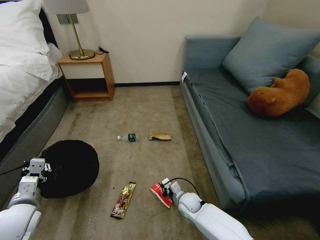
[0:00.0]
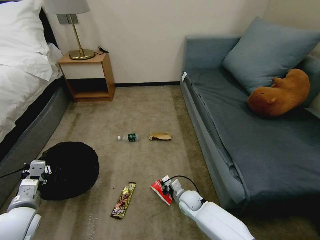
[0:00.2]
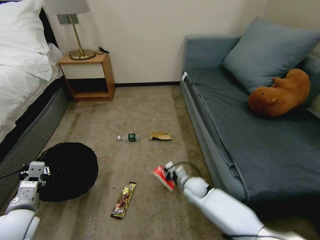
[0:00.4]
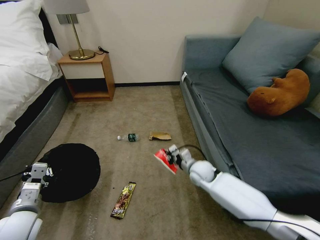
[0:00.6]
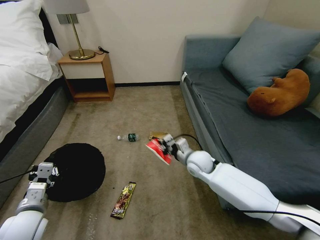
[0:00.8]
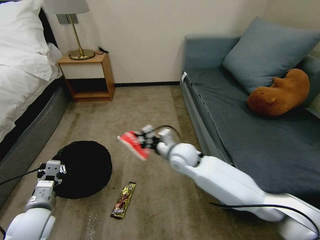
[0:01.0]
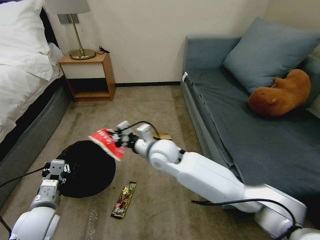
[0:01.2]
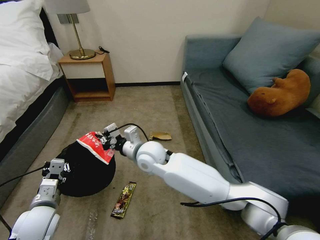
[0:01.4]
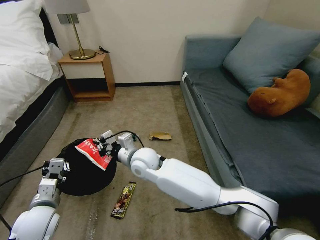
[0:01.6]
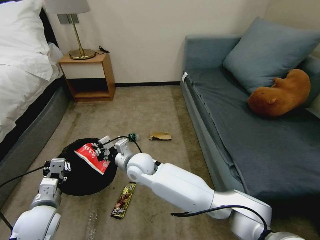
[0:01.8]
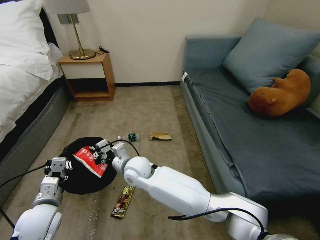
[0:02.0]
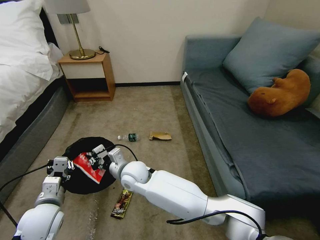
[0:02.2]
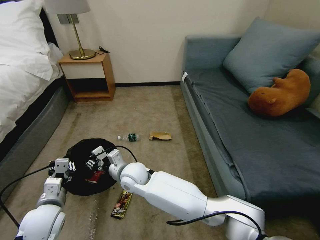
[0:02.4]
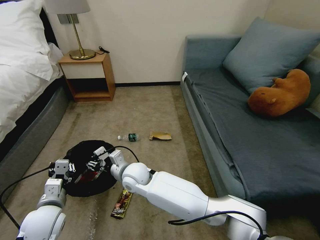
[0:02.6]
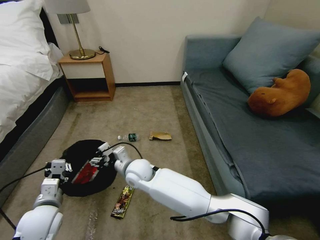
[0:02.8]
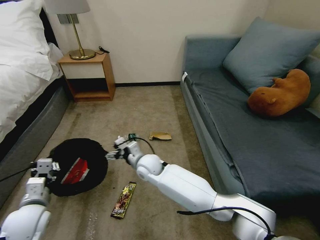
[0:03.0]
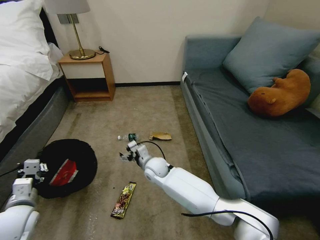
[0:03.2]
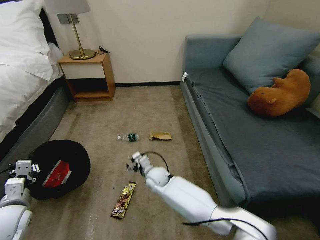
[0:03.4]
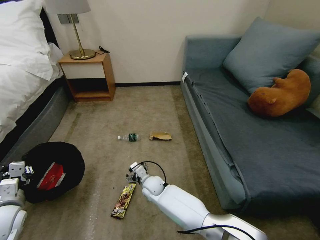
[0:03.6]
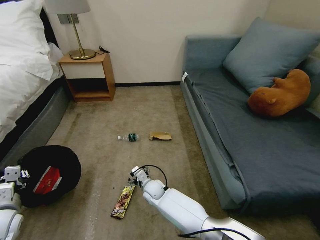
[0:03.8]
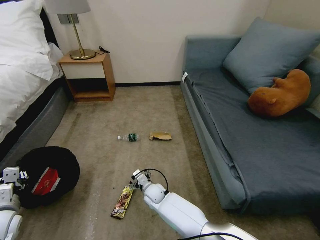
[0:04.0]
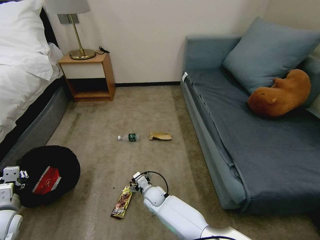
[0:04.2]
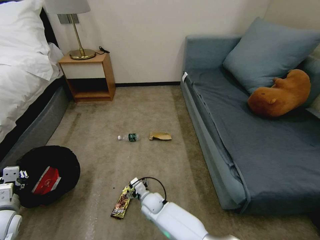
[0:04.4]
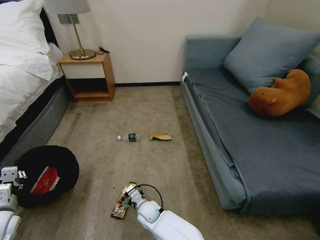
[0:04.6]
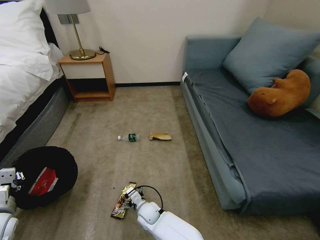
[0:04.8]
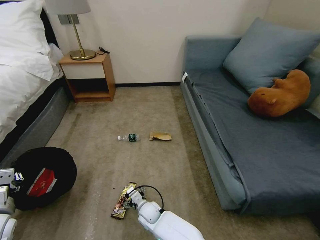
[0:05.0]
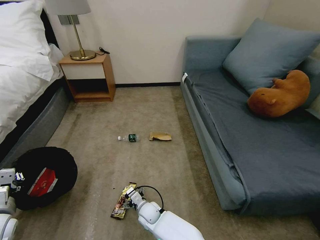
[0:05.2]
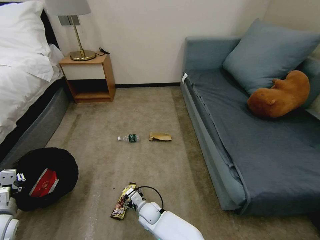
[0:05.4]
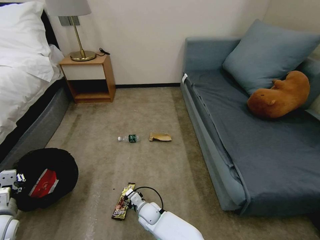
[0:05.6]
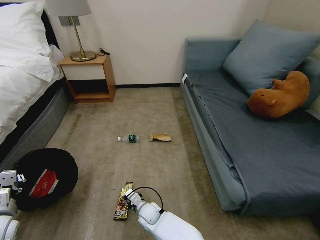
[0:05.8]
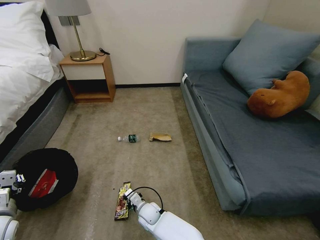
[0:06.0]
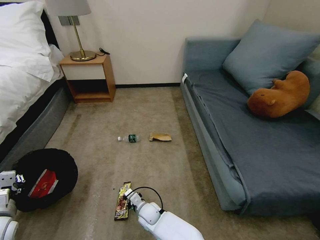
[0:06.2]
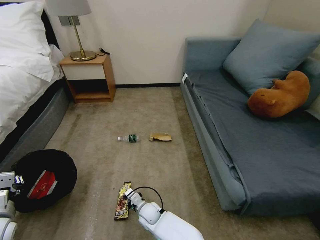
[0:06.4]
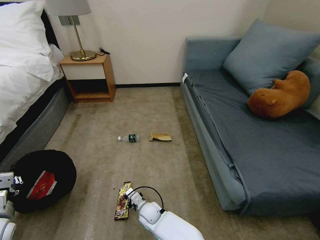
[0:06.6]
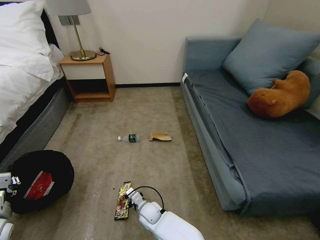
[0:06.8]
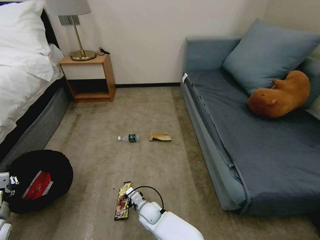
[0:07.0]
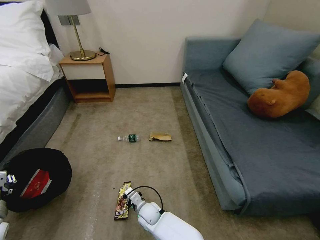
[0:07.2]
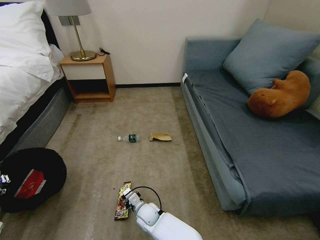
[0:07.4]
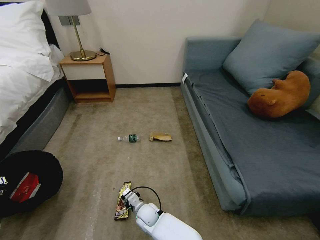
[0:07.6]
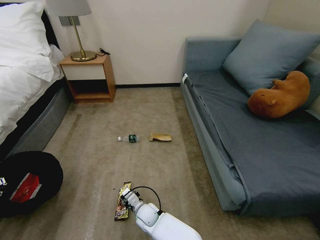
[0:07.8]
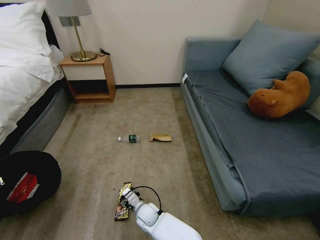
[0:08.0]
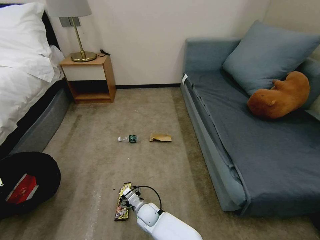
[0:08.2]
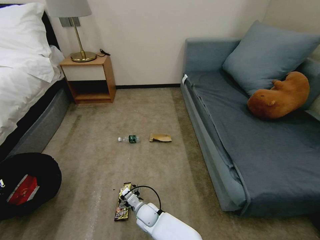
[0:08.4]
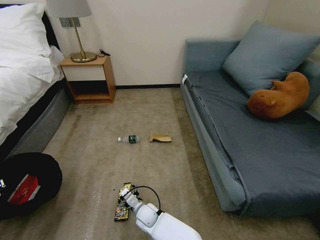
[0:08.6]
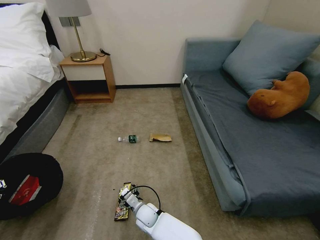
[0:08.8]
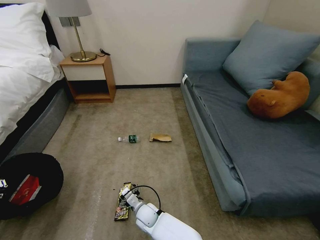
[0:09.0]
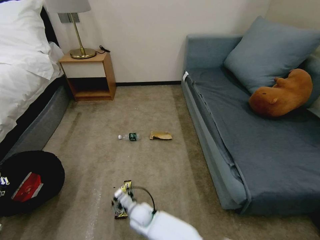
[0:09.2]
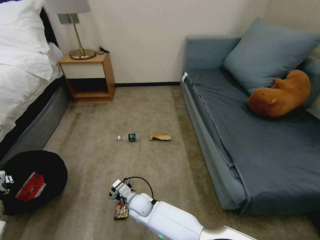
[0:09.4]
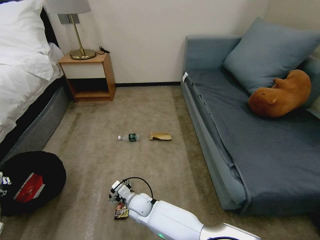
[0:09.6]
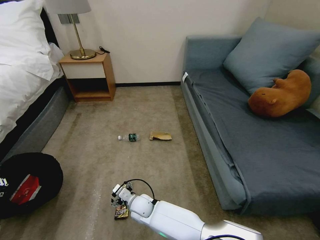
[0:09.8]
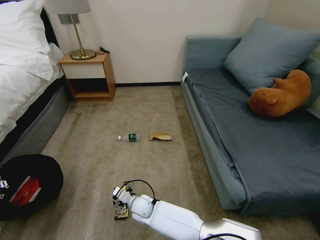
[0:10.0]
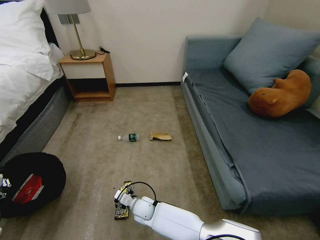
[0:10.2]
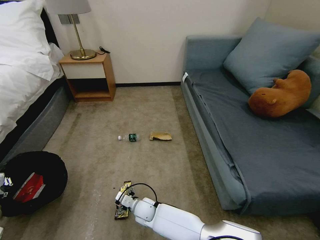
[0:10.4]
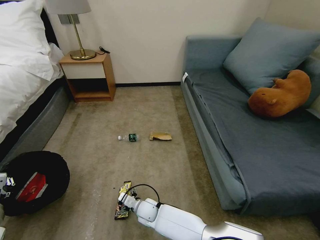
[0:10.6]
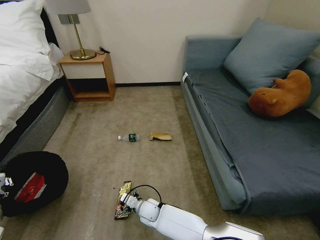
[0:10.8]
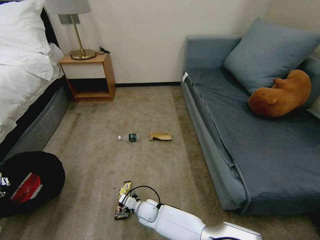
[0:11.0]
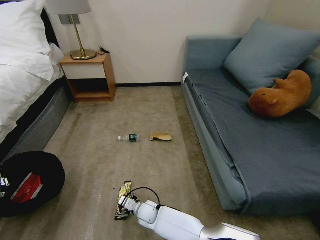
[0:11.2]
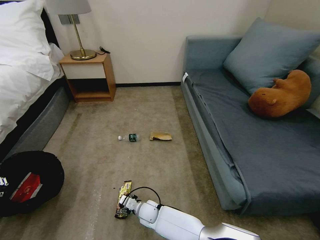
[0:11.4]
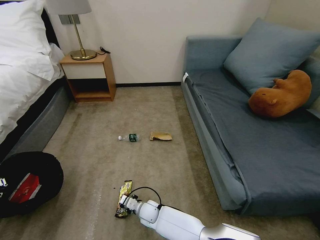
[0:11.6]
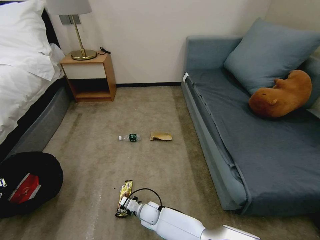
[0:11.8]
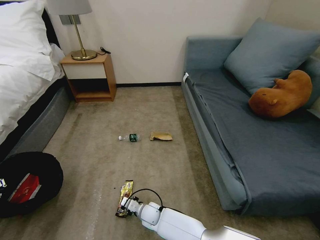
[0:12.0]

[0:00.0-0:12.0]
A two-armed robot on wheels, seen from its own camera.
Task of the whole recording: Pick up the trash bin, then pick up the garbage on the floor and place it into the trash bin.
0:00.0 to 0:01.6: The right gripper shifts roughly 30 cm upward and to the left; the left gripper travels to the right by some 5 cm.
0:01.6 to 0:03.0: The right gripper travels downward by roughly 5 cm, and opens its fingers.
0:03.0 to 0:04.4: The left gripper is displaced to the left by roughly 10 cm; the right gripper travels downward and backward by approximately 20 cm.
0:04.4 to 0:06.0: The right gripper closes up.
0:06.0 to 0:07.6: The grippers move only a little.
0:07.6 to 0:09.0: The right gripper opens.
0:10.4 to 0:12.0: The right gripper closes up.

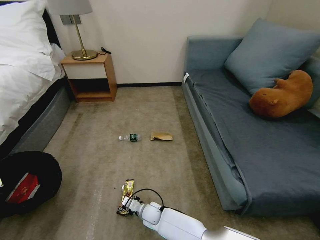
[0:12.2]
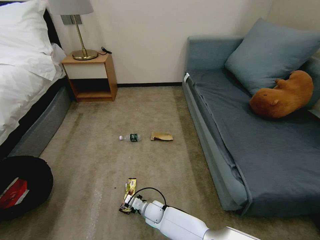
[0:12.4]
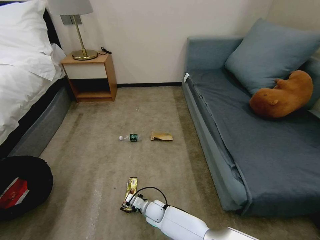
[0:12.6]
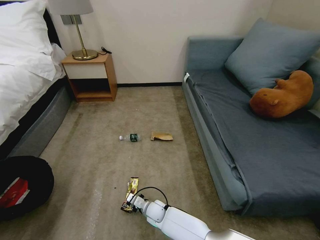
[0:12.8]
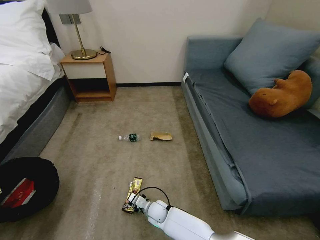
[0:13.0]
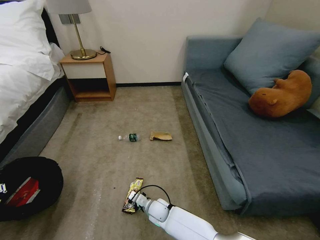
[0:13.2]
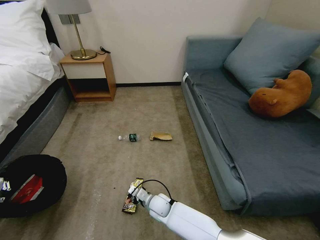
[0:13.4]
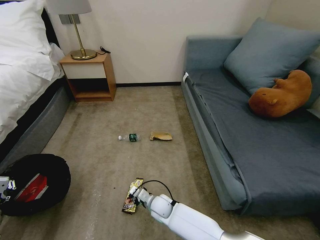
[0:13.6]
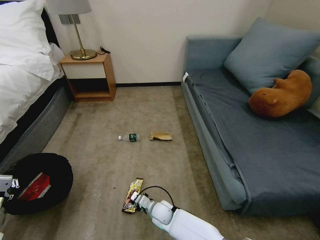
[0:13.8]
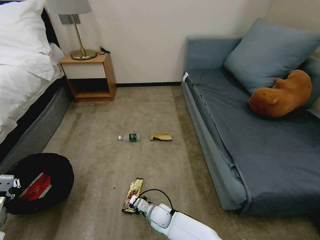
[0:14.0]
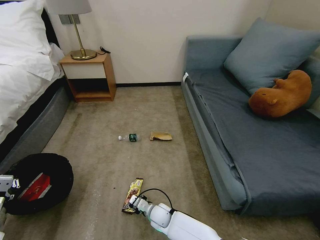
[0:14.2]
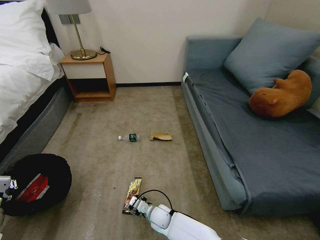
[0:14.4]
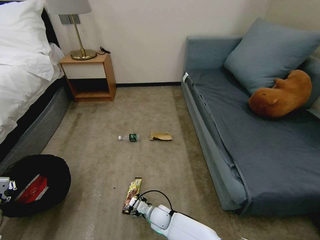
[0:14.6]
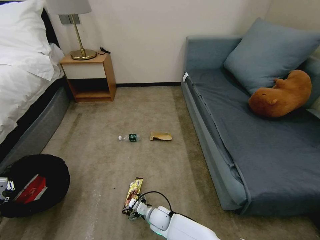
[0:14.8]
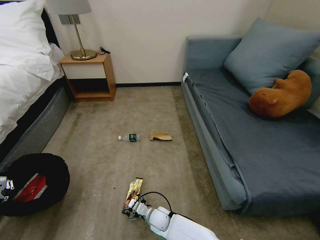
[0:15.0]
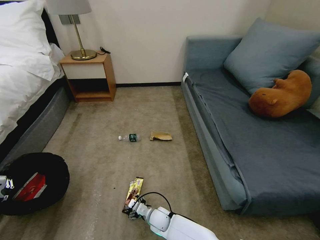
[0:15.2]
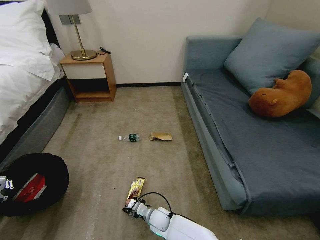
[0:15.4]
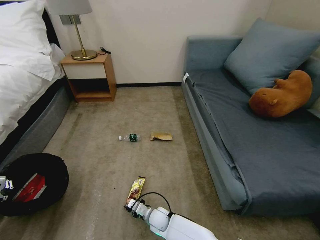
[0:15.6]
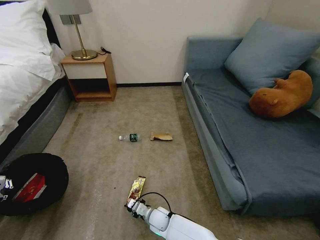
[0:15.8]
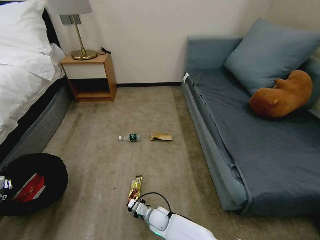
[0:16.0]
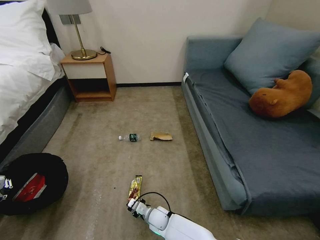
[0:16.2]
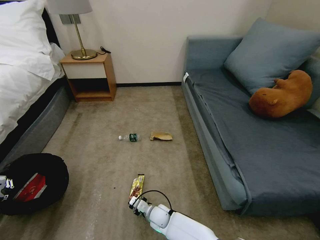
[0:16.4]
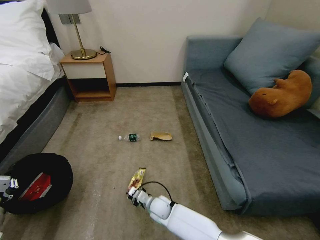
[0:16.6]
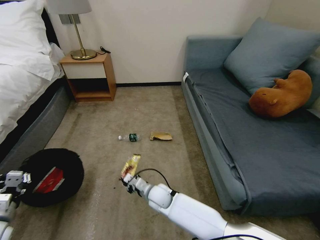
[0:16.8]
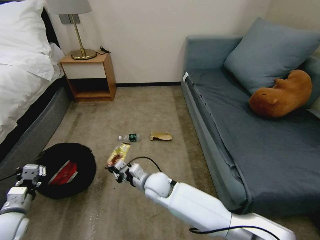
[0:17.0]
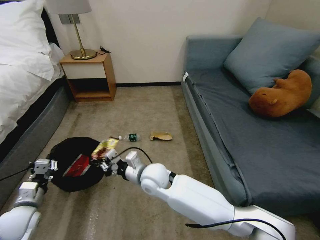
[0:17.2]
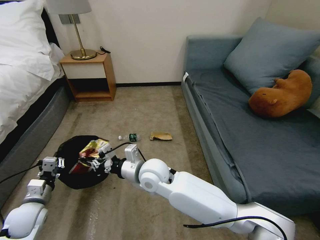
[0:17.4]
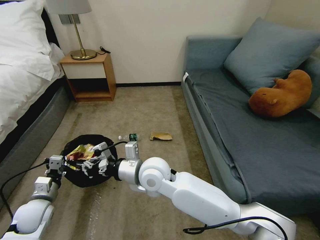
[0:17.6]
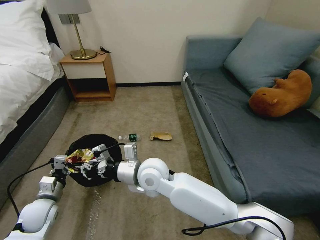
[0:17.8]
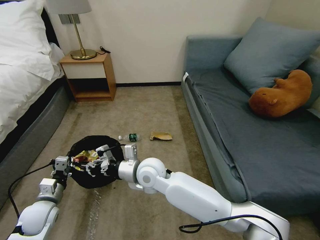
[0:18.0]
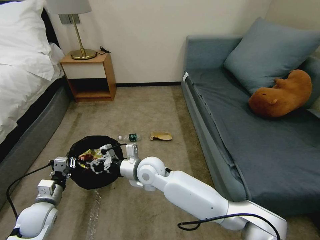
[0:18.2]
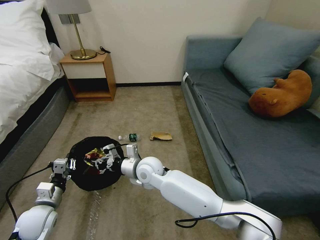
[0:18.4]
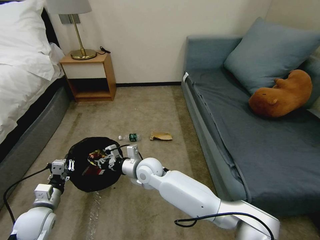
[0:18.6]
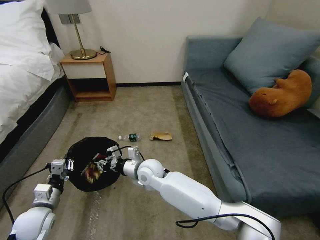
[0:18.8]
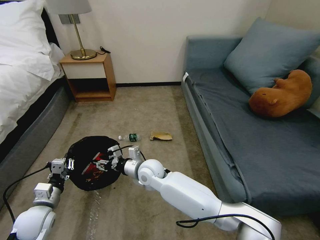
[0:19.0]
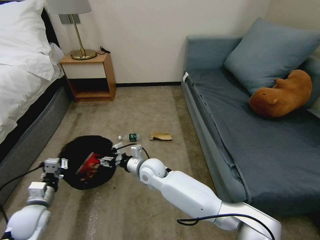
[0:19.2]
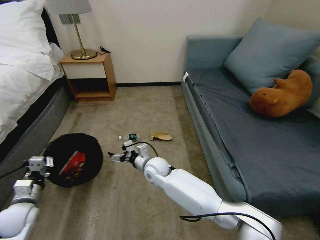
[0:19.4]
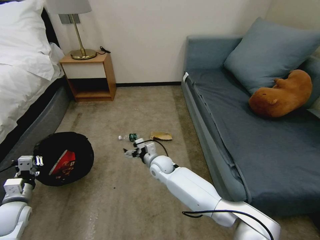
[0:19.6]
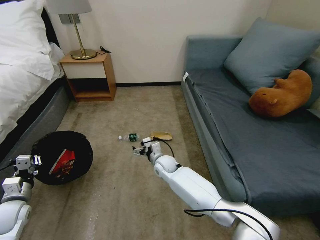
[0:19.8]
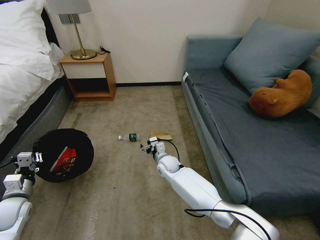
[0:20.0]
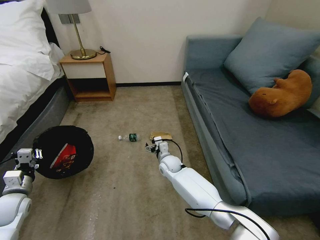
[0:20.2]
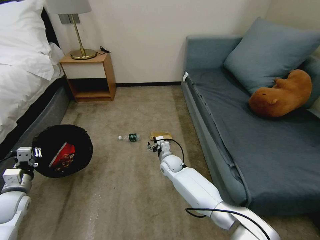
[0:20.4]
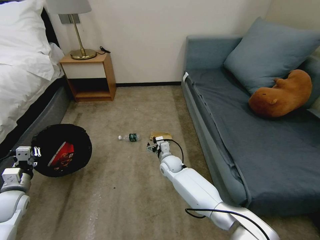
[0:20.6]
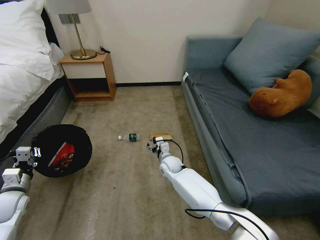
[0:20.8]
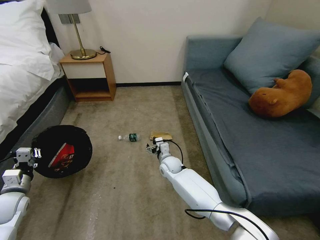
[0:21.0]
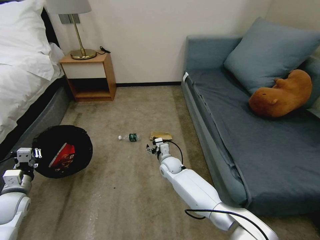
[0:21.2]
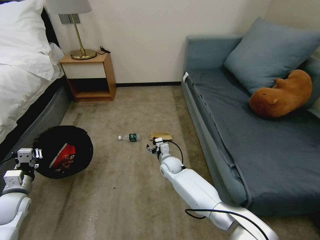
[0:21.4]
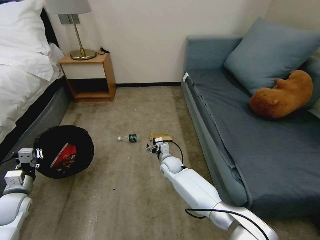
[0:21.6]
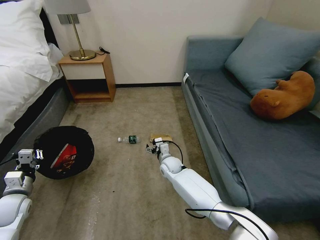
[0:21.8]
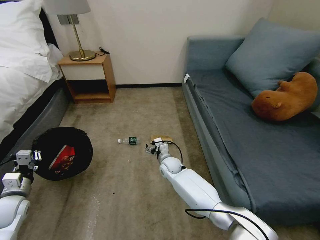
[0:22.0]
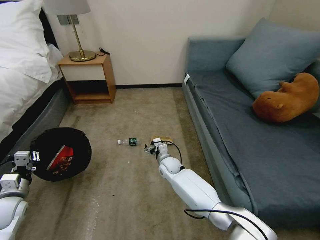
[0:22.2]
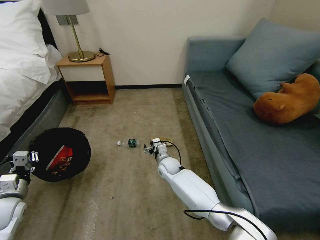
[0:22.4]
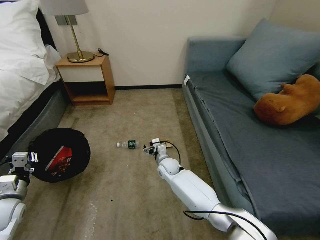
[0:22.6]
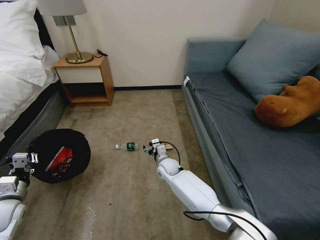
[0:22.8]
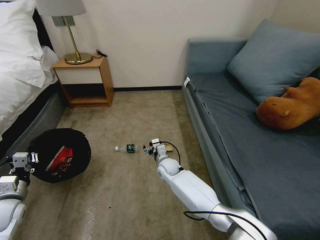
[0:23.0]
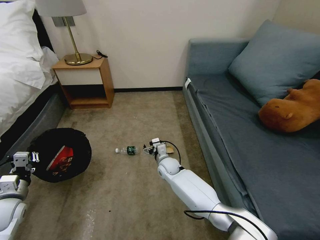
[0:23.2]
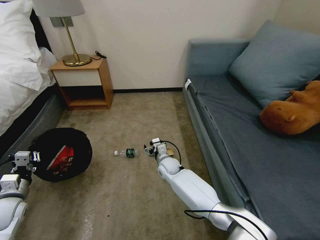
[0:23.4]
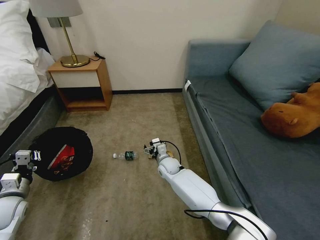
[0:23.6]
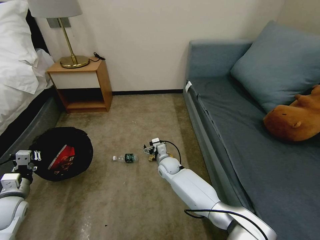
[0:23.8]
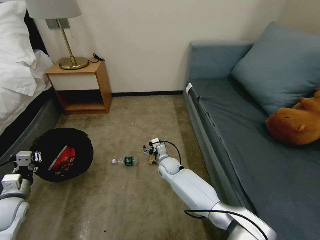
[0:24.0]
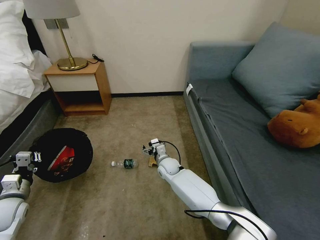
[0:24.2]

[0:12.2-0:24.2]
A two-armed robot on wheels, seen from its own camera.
Task of the whole recording: Pick up the trash bin, then pick up the garbage on the floor and place it into the trash bin.
0:13.8 to 0:15.2: The right gripper opens up.
0:15.2 to 0:16.6: The right gripper shifts by about 5 cm, and closes up.
0:16.6 to 0:18.2: The left gripper shifts some 15 cm to the right and forward, while the right gripper heads upward, covering about 25 cm.
0:18.2 to 0:19.8: The left gripper goes roughly 10 cm to the left; the right gripper travels downward, forward and to the right by some 15 cm, and opens its fingers.
0:19.8 to 0:22.6: The grippers stay close to where they were, moving slightly.
